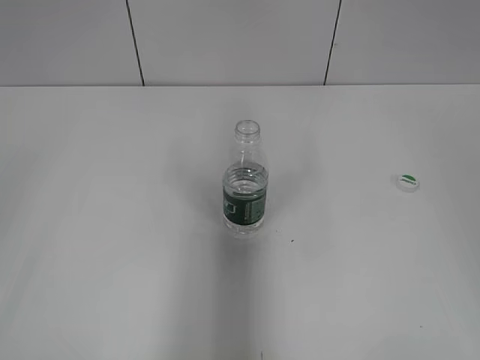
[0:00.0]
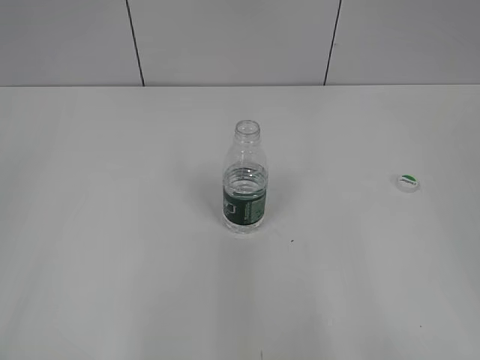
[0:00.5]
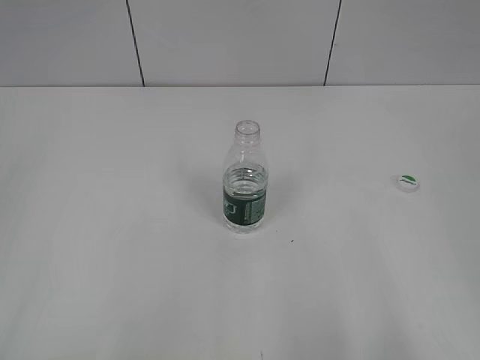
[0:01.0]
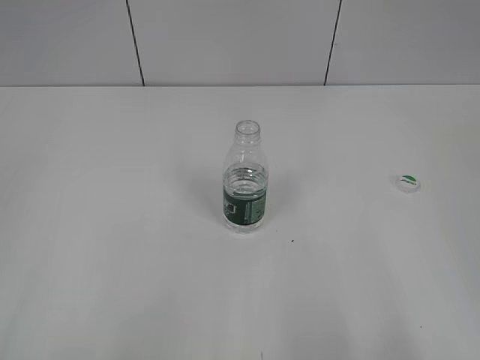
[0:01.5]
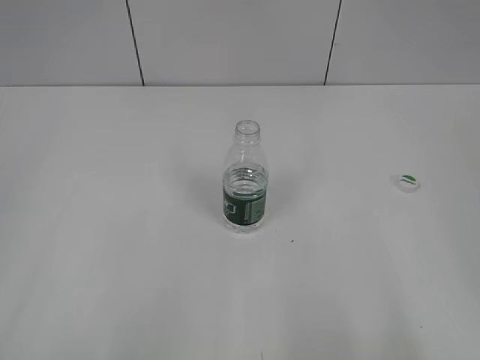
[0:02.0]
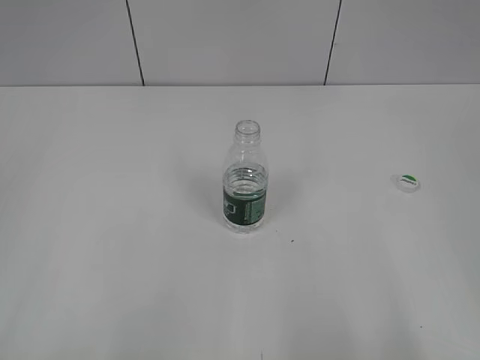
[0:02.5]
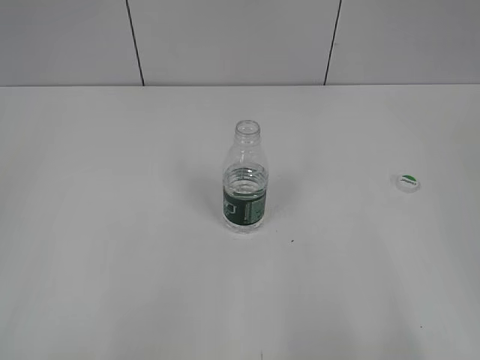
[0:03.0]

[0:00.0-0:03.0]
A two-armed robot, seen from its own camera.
0:00.0 to 0:01.5: Both grippers travel together downward and backward, about 15 cm.
